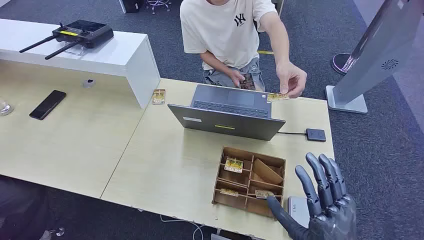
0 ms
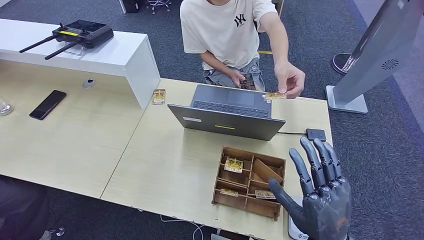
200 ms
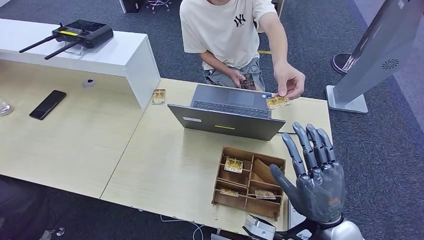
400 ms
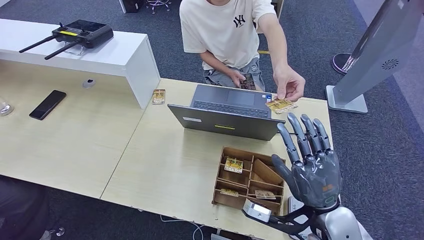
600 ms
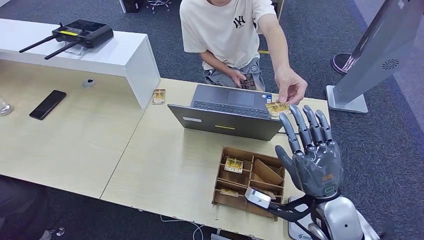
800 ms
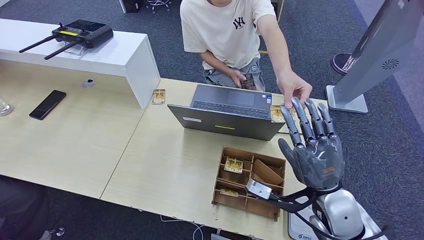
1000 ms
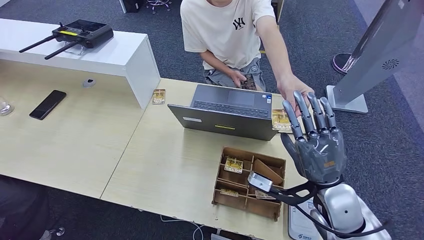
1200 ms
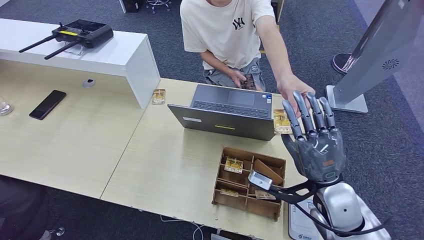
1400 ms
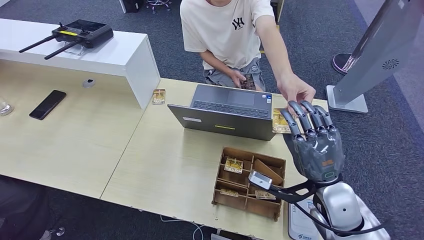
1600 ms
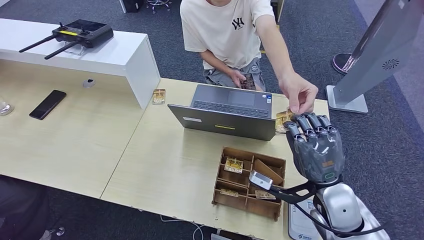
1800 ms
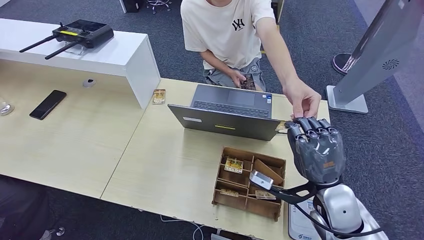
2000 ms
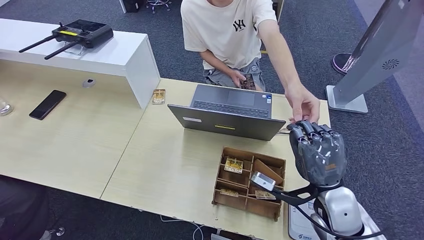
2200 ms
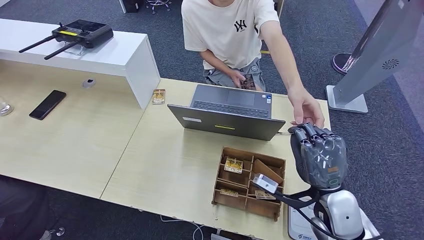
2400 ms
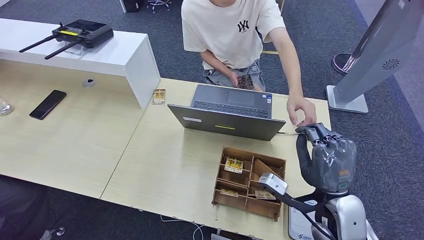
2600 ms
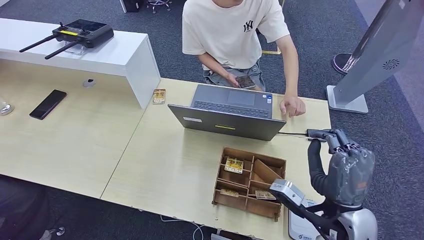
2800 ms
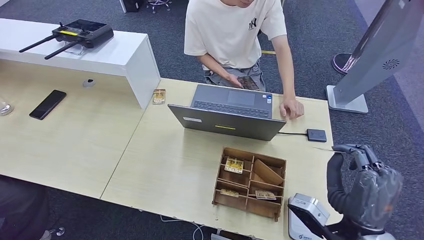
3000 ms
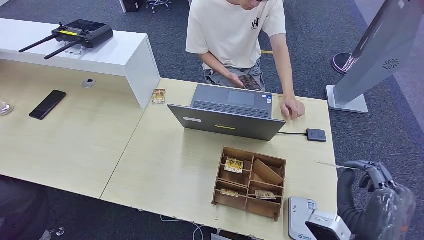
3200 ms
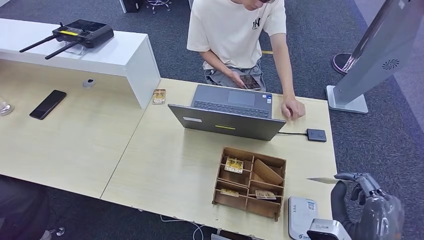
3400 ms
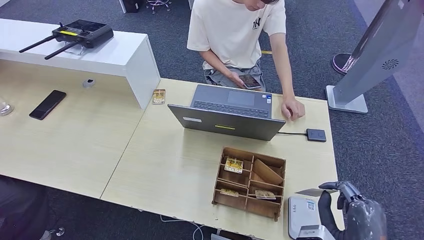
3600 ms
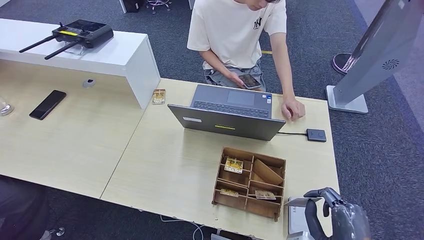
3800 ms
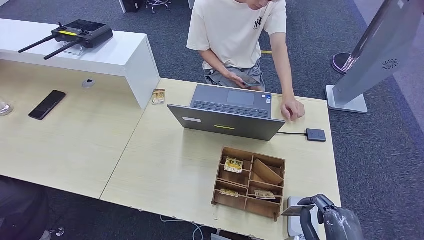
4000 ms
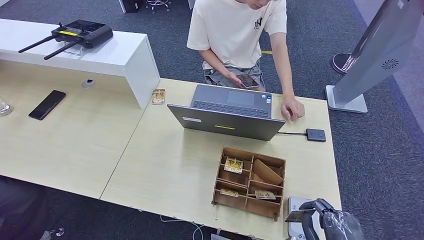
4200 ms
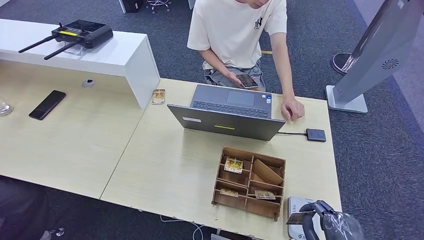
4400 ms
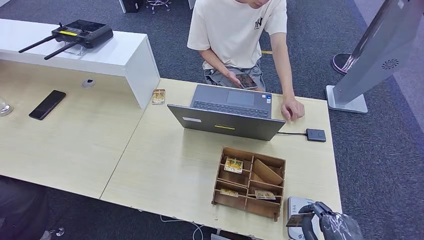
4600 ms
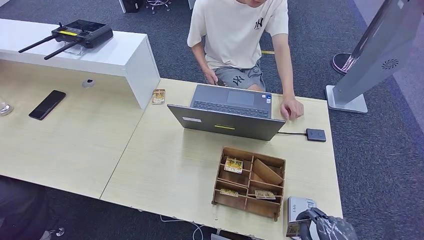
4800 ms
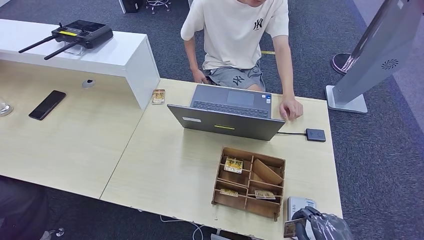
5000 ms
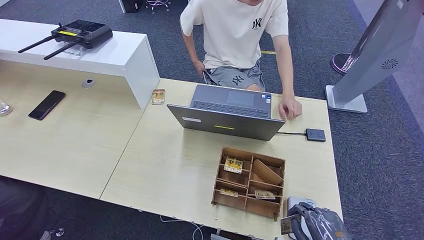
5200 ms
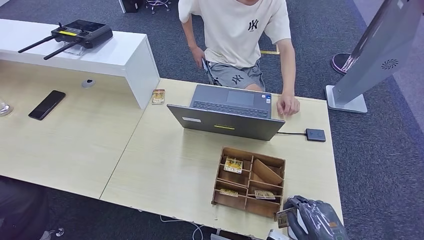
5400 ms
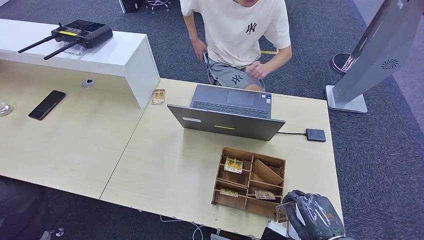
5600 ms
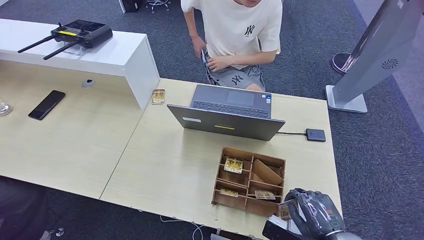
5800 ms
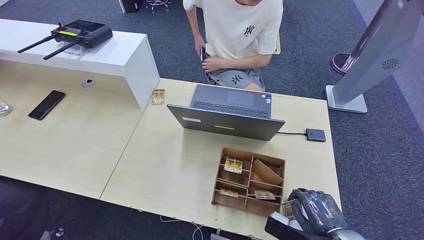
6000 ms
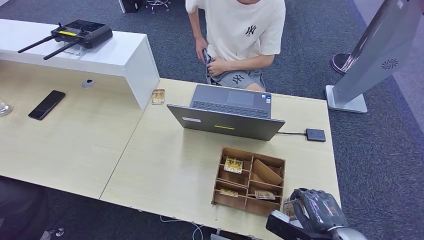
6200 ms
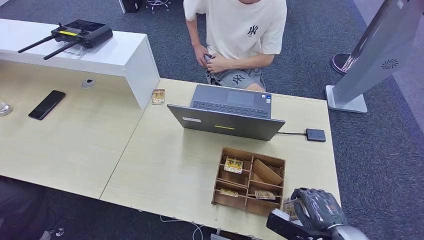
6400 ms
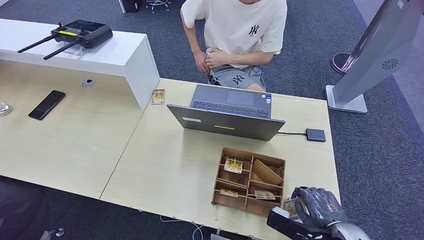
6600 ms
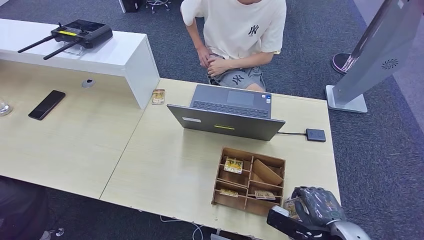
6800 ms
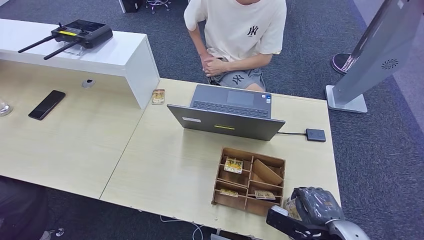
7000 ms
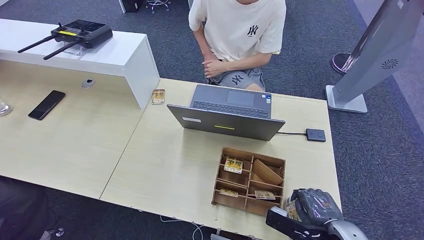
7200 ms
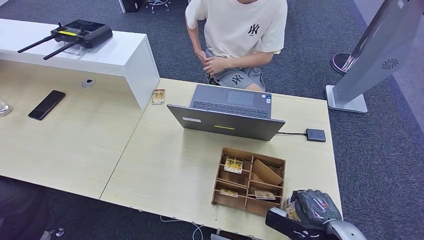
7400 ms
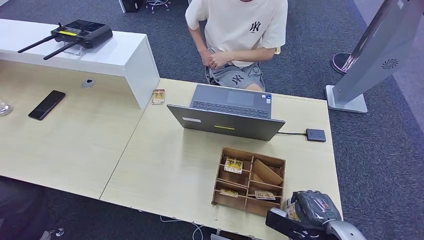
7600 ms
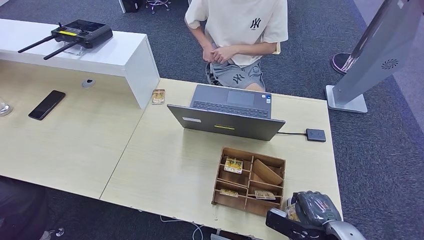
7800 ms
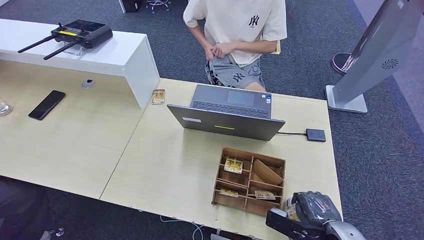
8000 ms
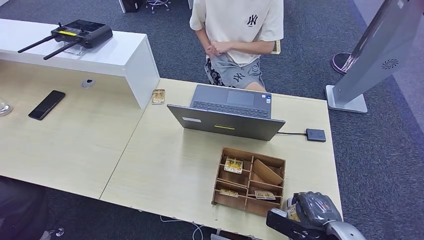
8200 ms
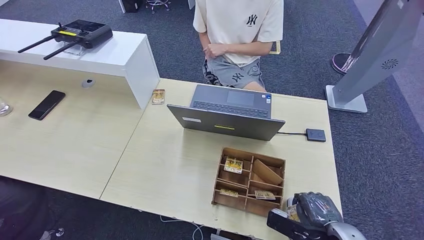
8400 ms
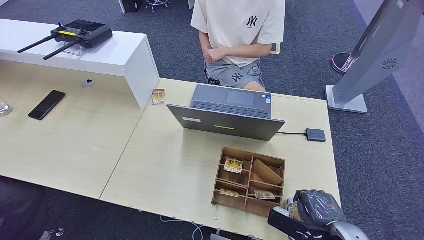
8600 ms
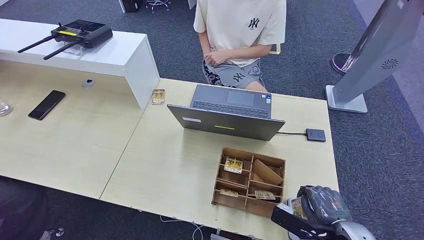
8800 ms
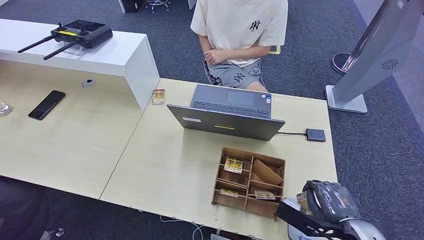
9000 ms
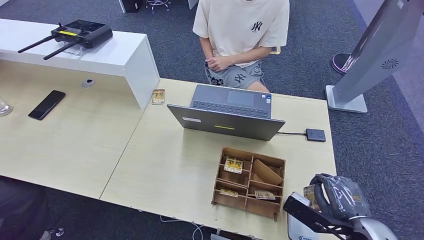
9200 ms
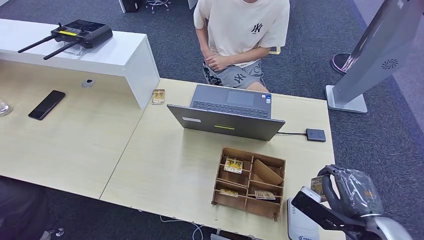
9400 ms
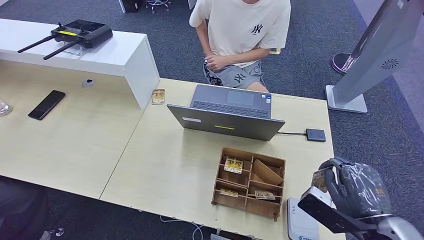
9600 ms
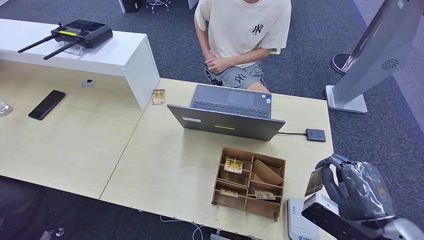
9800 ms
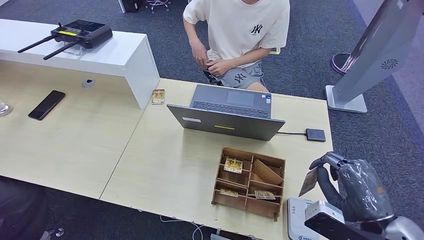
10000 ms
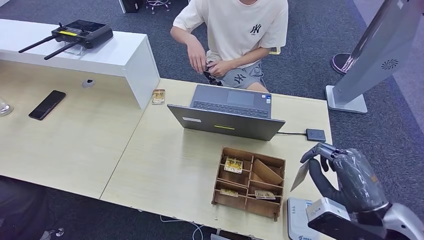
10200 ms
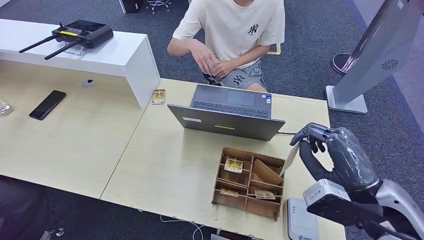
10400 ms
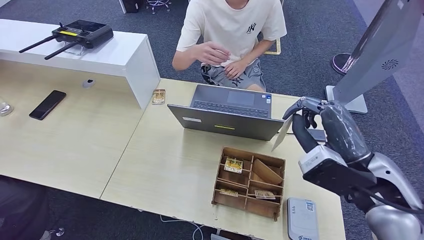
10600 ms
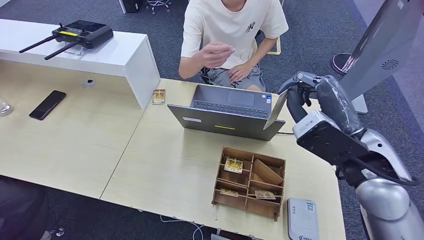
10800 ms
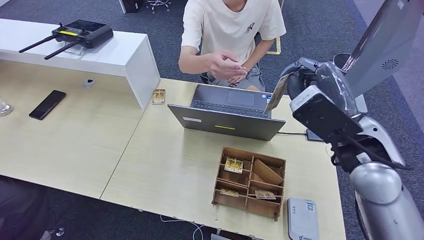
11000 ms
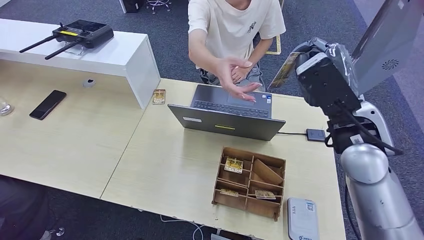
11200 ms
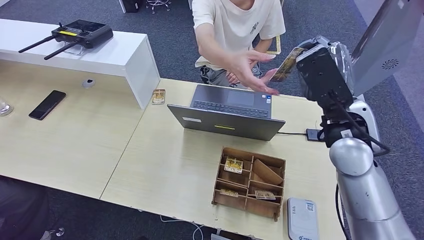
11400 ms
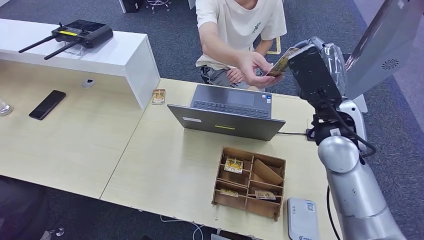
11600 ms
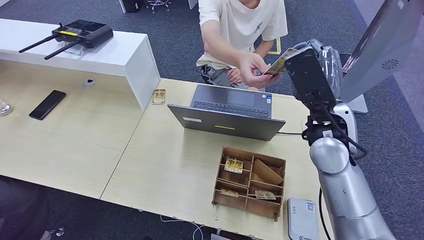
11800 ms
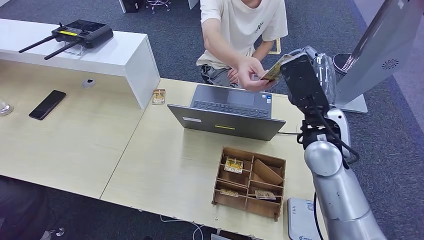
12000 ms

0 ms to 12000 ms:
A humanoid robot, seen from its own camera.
Step, 0 ms to 2600 ms: Take the ID card from the person's hand.
Step, 3000 ms to 7400 ms: Place the ID card on the card reader.
1600 ms to 3000 ms: The right hand goes about 10 cm backward.
3000 ms to 4400 ms: The right hand heads backward, covering some 10 cm.
4400 ms to 6000 ms: The right hand is displaced forward by roughly 10 cm.
6000 ms to 9000 ms: The hands stay close to where they were, moving slightly.
9000 ms to 10400 ms: The right hand moves upward, about 15 cm.
10400 ms to 12000 ms: The right hand shifts approximately 15 cm forward and to the left.

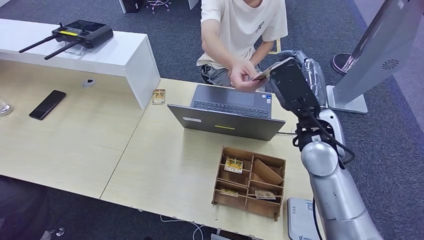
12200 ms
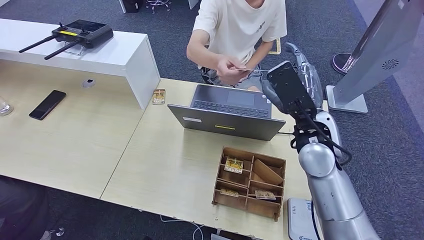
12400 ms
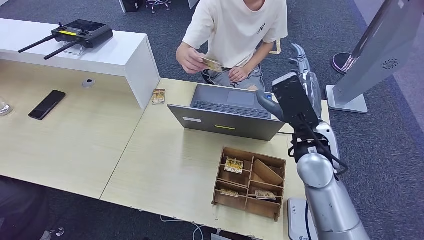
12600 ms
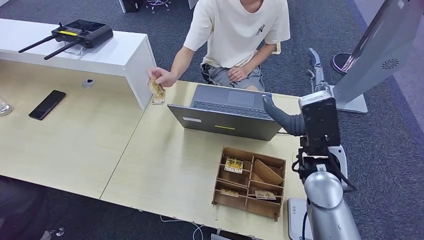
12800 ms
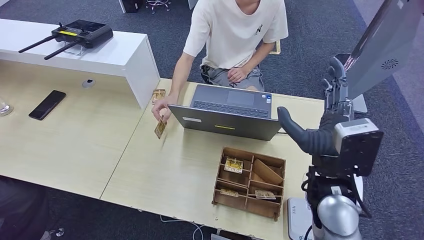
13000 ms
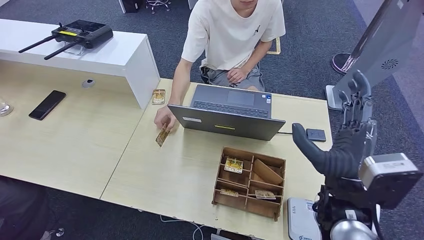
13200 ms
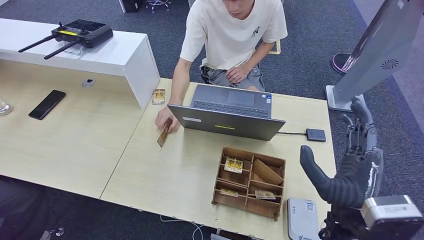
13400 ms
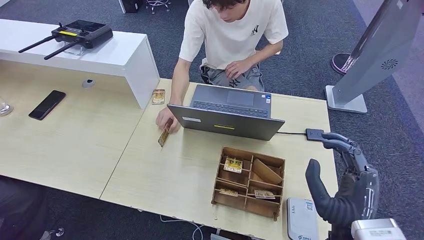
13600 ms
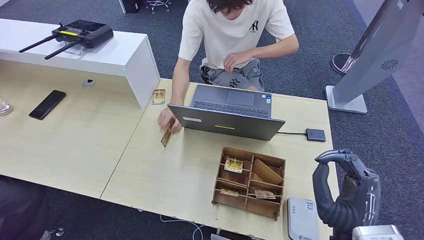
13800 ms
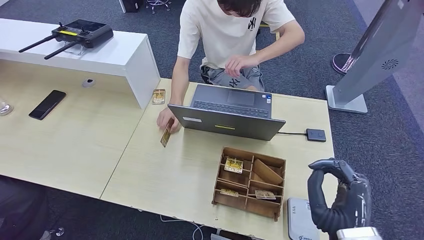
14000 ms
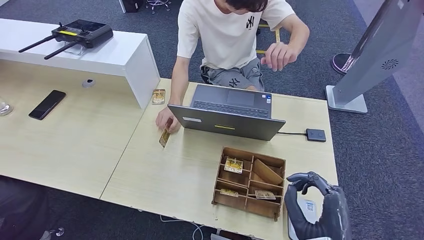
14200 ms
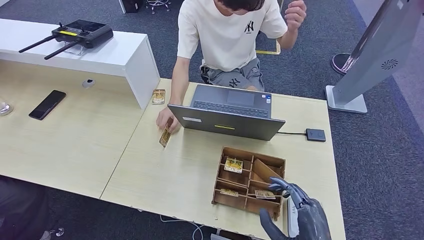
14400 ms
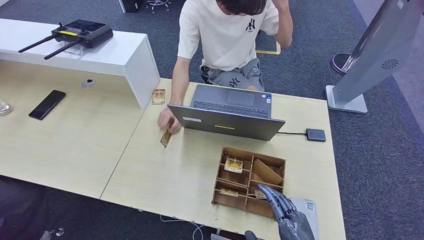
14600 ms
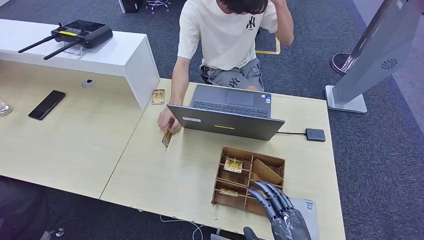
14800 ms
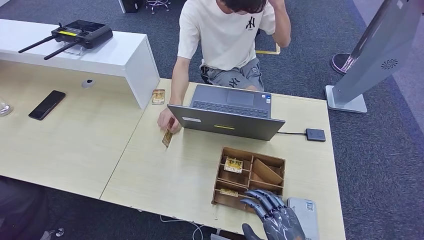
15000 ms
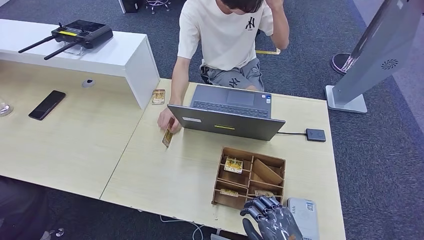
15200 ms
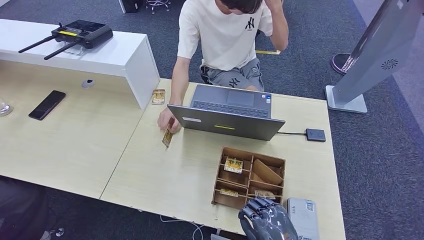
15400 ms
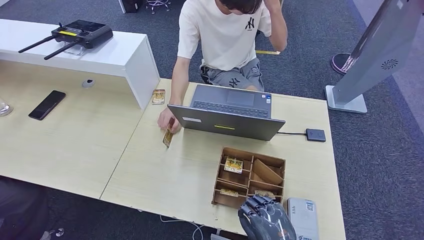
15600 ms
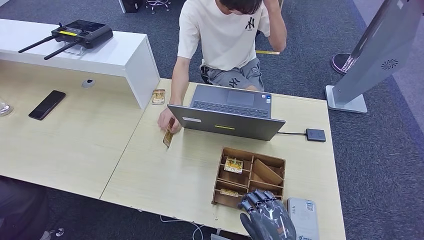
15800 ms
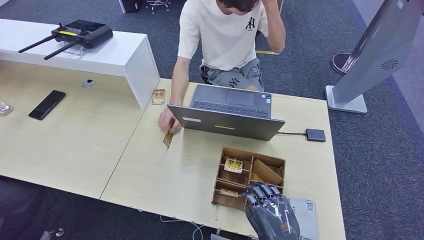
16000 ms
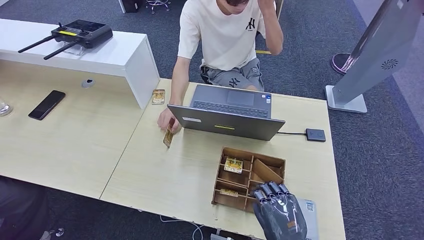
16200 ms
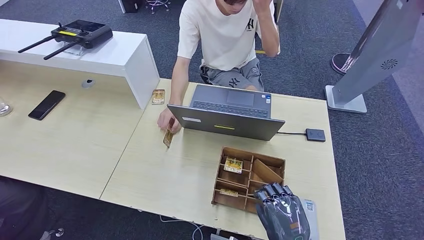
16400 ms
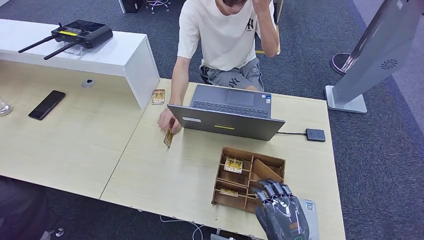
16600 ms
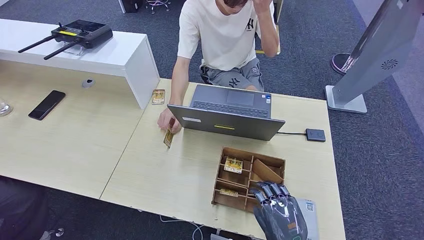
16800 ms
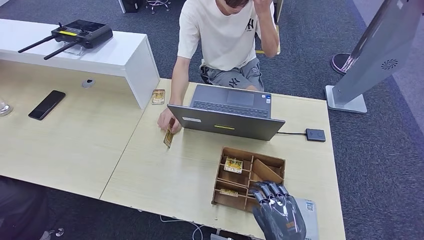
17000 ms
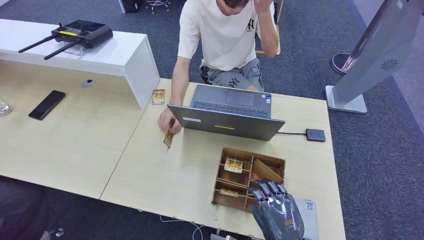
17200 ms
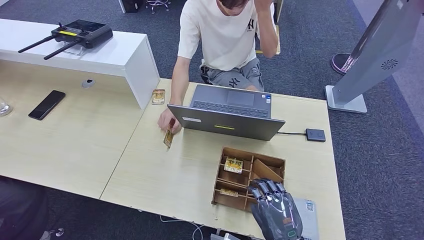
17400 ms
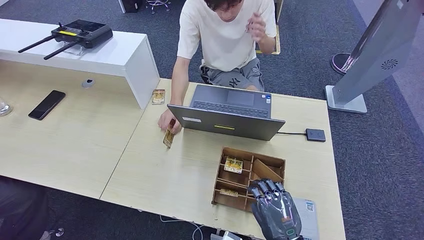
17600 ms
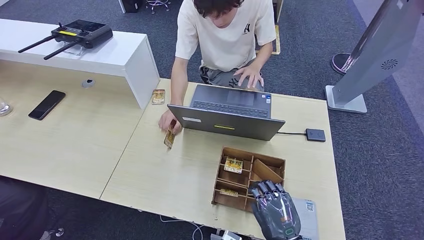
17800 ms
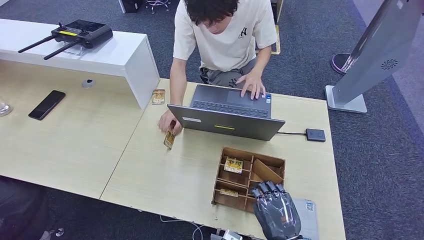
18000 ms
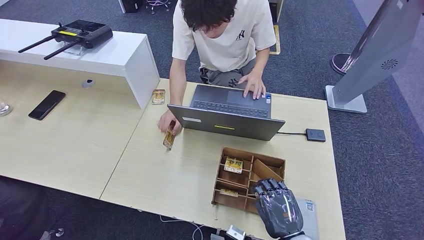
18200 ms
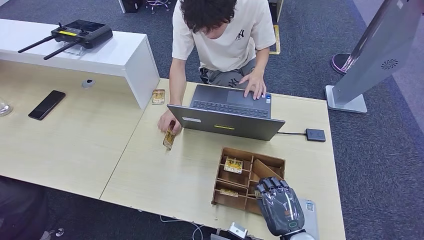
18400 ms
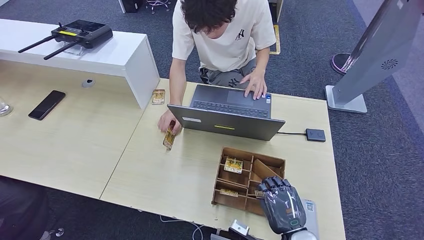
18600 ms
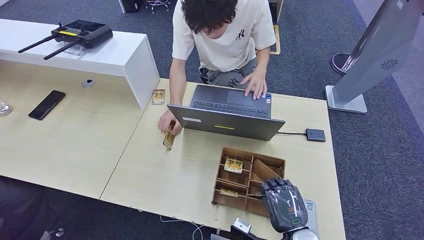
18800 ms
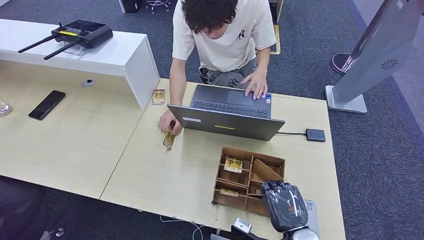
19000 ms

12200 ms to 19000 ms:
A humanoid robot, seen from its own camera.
12200 ms to 13600 ms: The right hand moves backward and downward, about 20 cm.
13600 ms to 15000 ms: The right hand shifts some 10 cm downward and backward.
16200 ms to 17600 ms: Both hands stay about where they are.
17600 ms to 19000 ms: The hands make only small movements.
